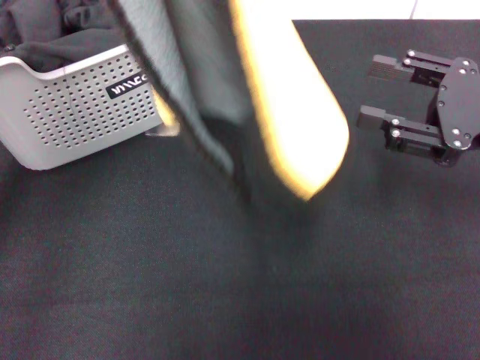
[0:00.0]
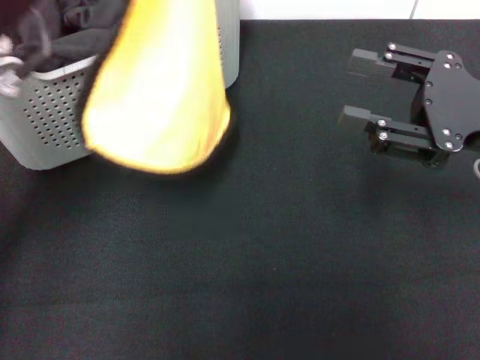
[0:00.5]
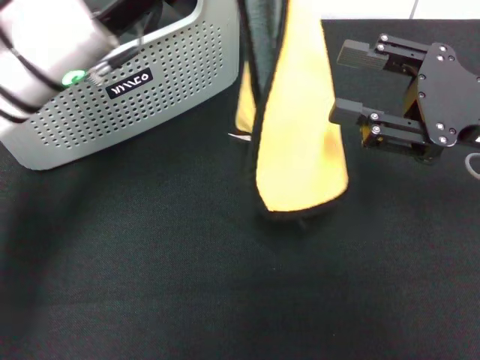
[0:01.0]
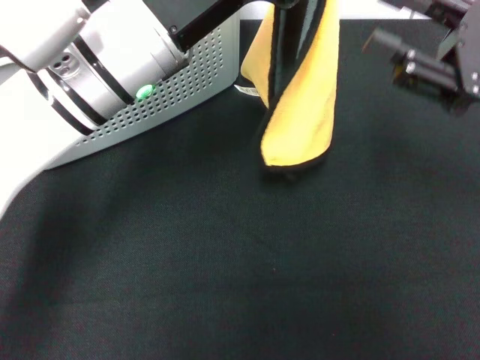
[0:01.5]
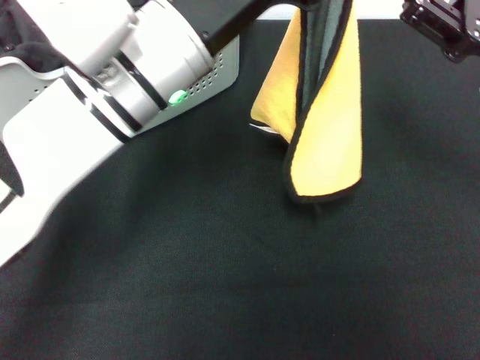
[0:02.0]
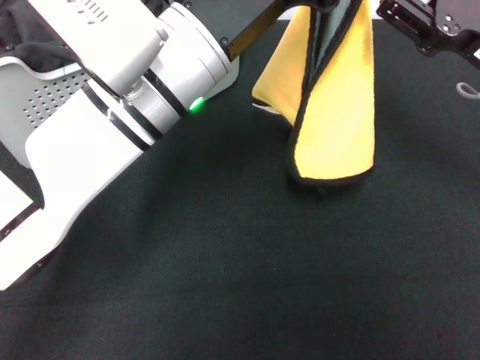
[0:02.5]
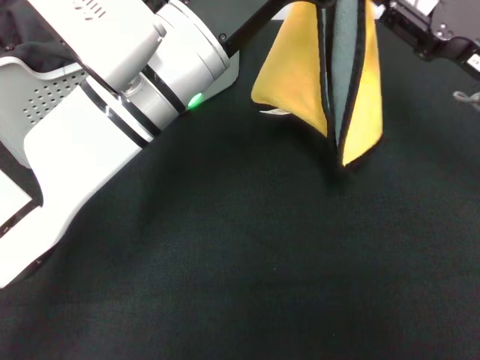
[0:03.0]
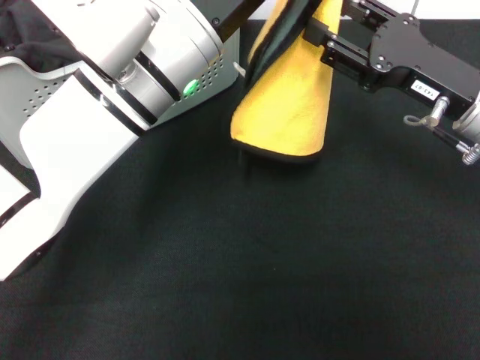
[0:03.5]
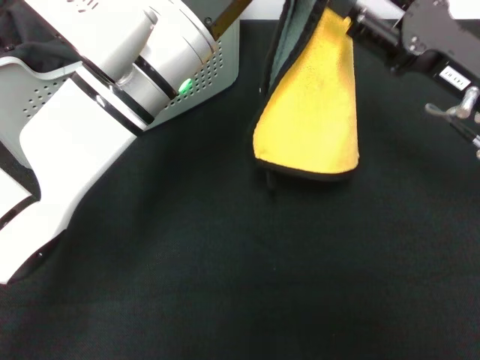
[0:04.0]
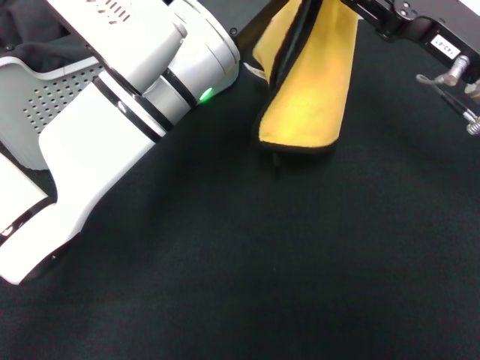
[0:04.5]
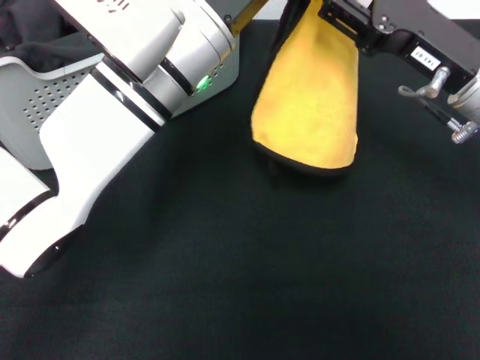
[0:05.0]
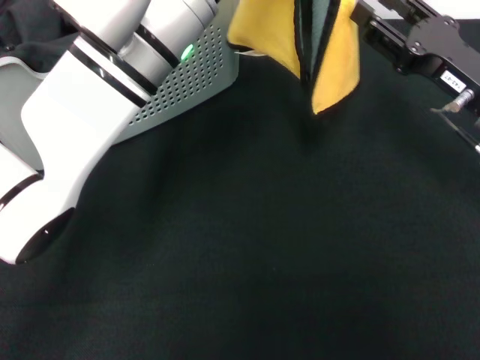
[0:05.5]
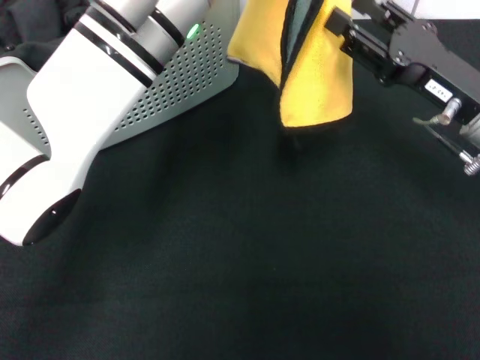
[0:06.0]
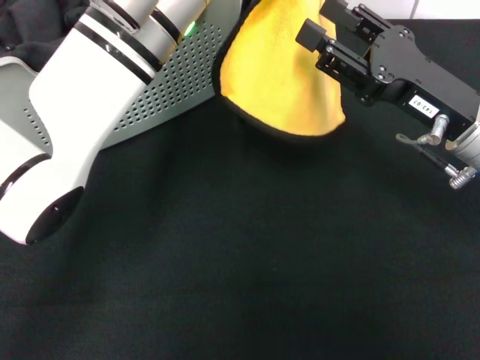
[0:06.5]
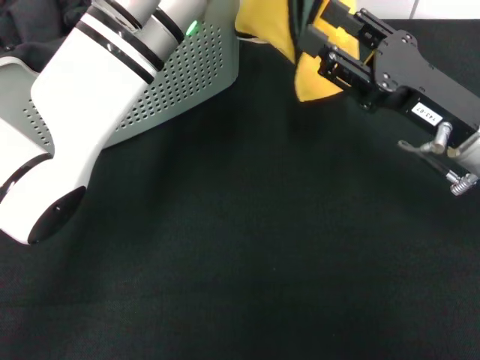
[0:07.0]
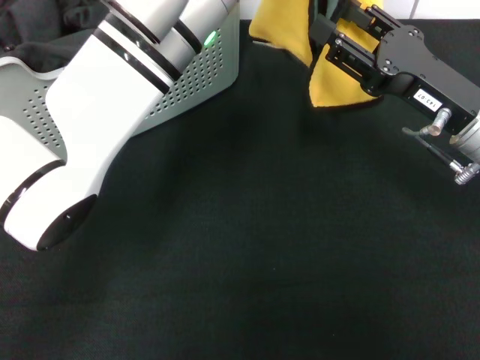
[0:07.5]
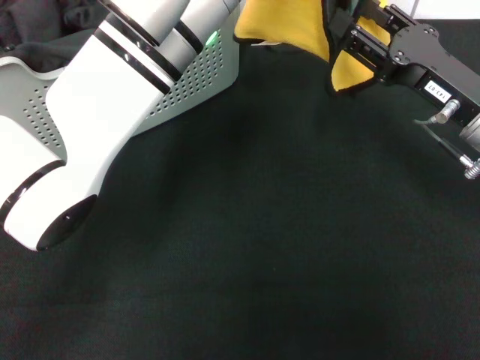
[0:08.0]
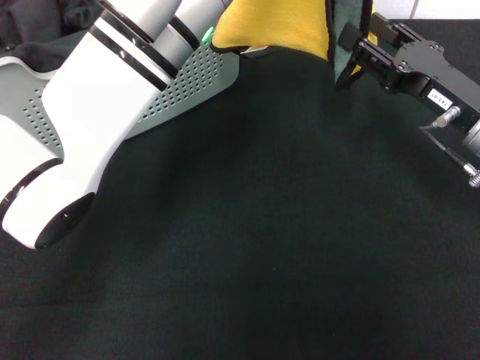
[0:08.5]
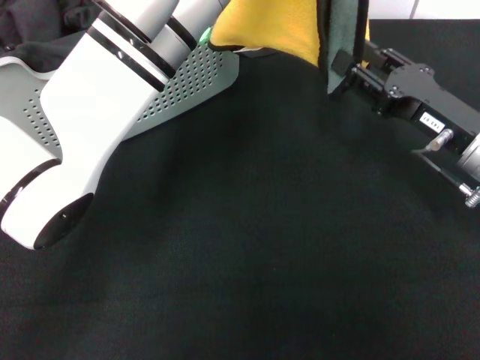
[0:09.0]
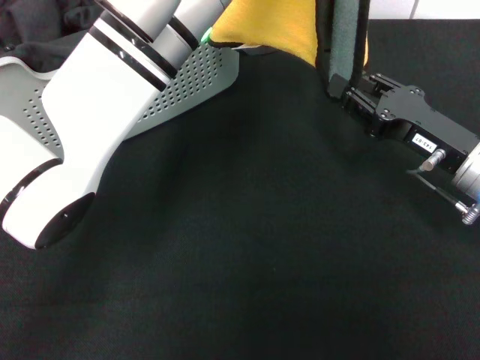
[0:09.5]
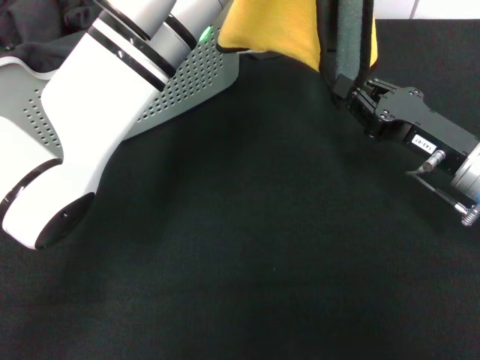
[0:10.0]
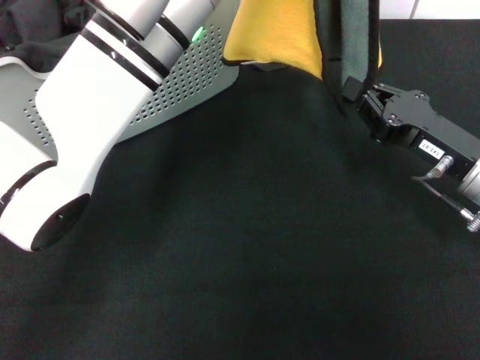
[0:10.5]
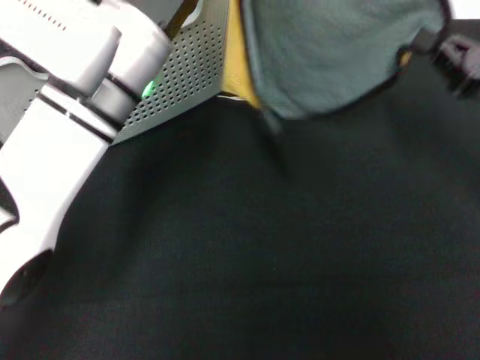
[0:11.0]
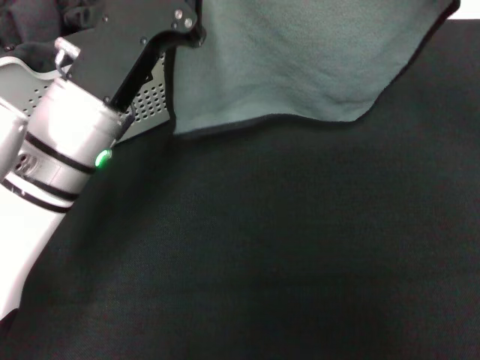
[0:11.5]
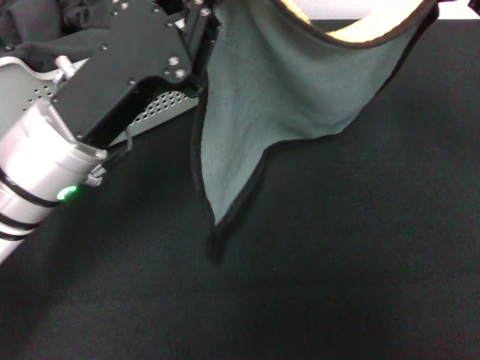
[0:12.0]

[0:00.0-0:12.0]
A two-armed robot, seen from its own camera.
Task of the whole recording: pick up the towel from the storage box and lay it flat on the black tablecloth.
Step, 0:00.0 to 0:10.5: Spread the towel flat with the left gripper.
0:00.0 to 0:02.0: The left gripper goes about 15 cm to the right and downward.
0:06.0 to 0:08.0: The grippers stay close to where they were, moving slightly.
0:08.0 to 0:10.0: The right gripper closes its fingers.
0:10.0 to 0:12.0: The left gripper heads to the left, backward and downward, covering about 15 cm. The right gripper heads upward and to the right, covering roughly 15 cm.

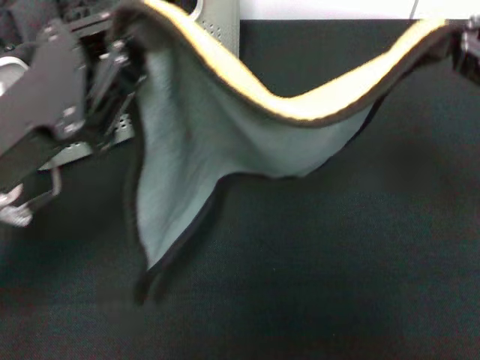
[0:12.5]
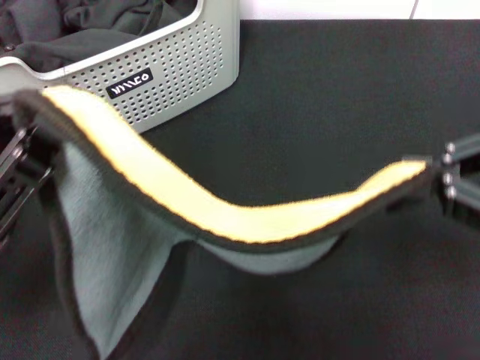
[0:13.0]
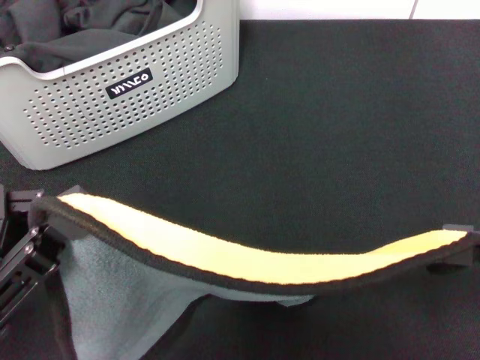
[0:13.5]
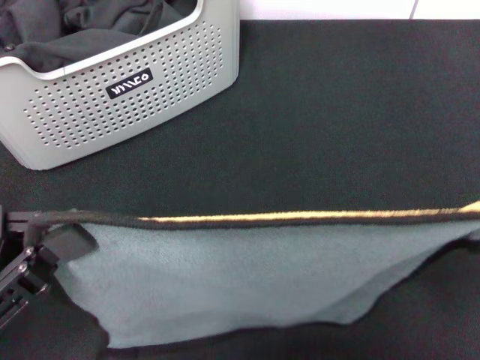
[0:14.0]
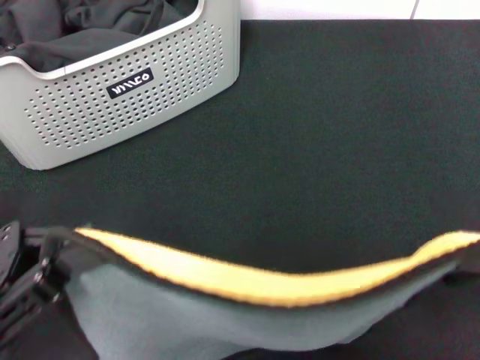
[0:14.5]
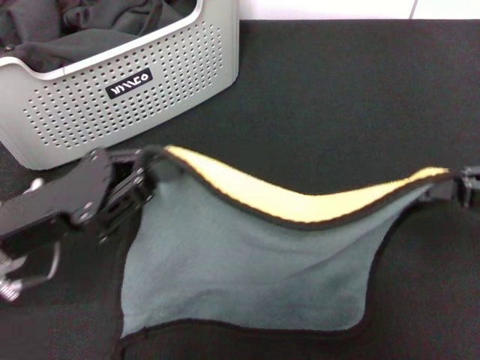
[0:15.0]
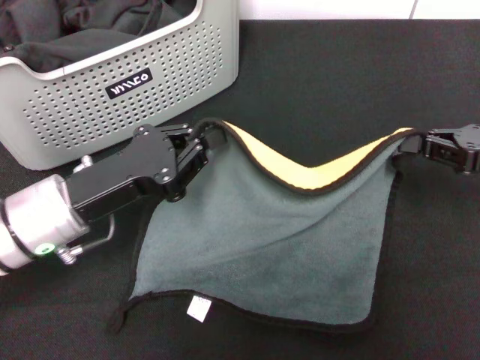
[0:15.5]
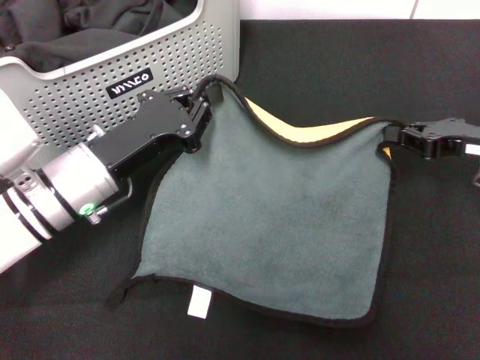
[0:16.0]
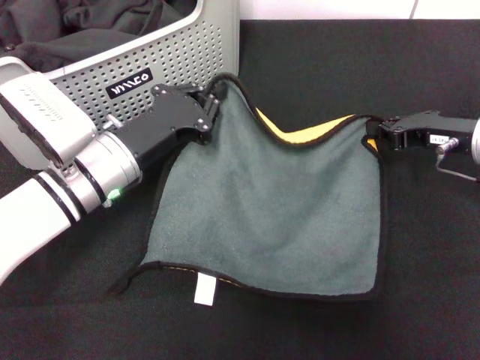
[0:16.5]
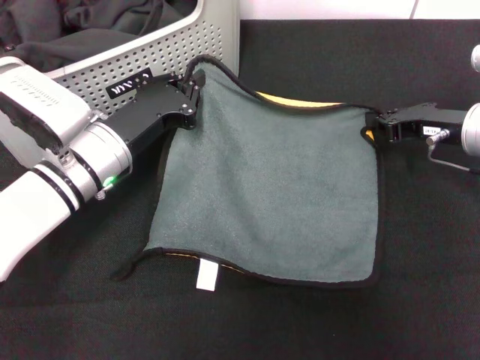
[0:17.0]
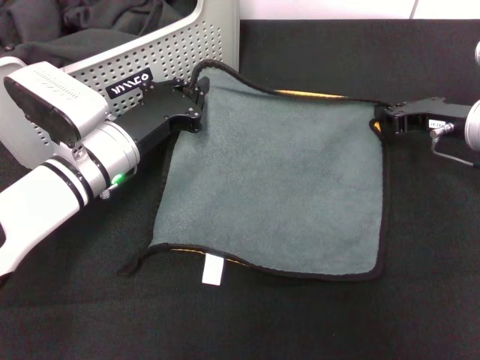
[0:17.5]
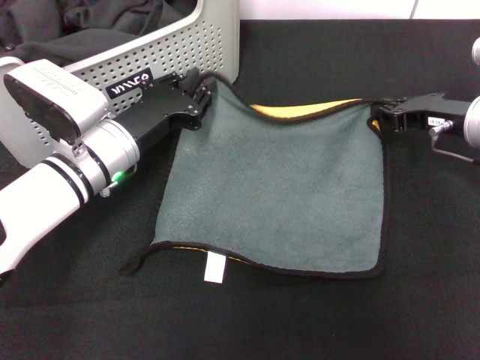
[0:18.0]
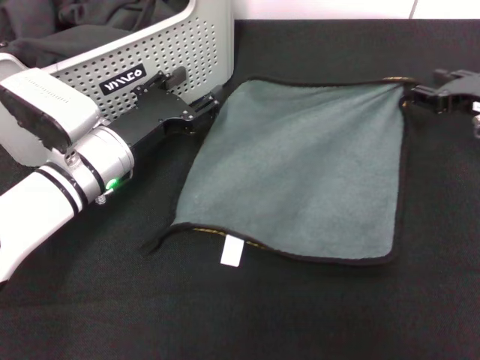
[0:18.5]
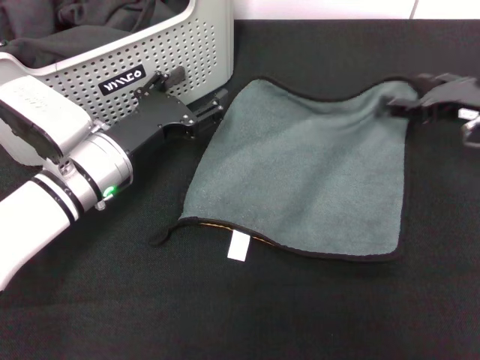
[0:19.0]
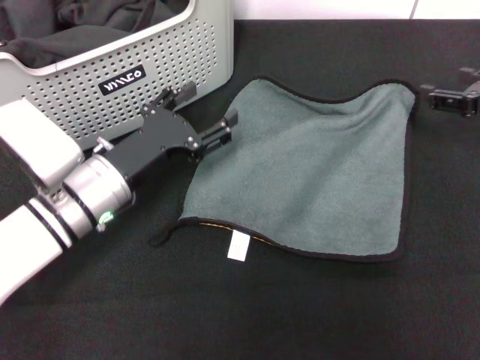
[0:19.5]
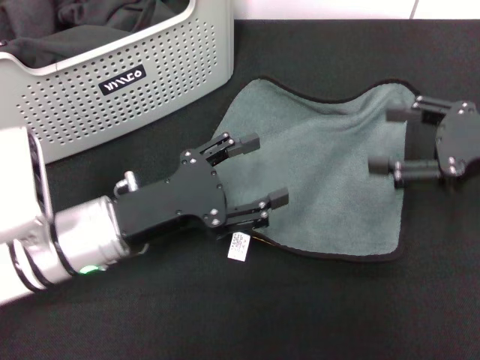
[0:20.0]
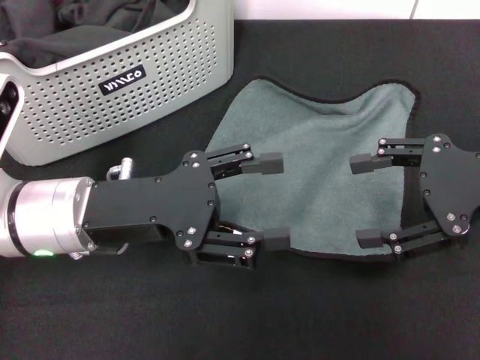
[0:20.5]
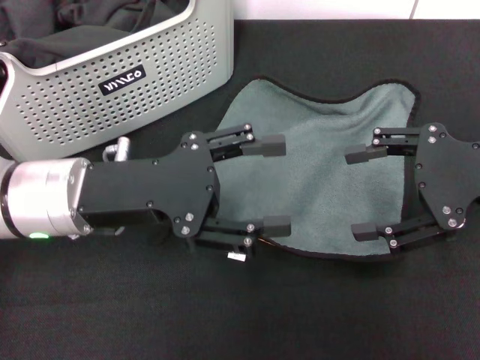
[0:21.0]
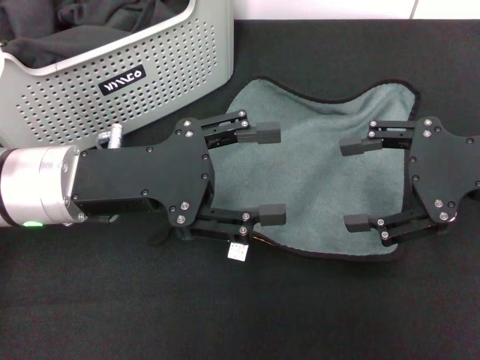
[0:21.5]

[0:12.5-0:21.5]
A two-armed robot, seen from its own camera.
Task of the whole recording: pick up the towel from the storage box and lay it flat on the black tablecloth.
Step, 0:12.5 to 0:18.0: Spread the towel flat with the right gripper.
0:12.5 to 0:14.5: The left gripper shifts some 10 cm backward and to the left. The right gripper shifts some 10 cm backward.
0:14.5 to 0:17.0: The left gripper goes some 25 cm forward, to the right and downward. The right gripper moves forward and downward, some 25 cm.
0:17.0 to 0:19.5: The right gripper shifts approximately 5 cm to the right, and opens up; the left gripper opens its fingers.
0:19.5 to 0:21.5: The left gripper moves upward, approximately 10 cm, while the right gripper is displaced backward, upward and to the left by roughly 10 cm.

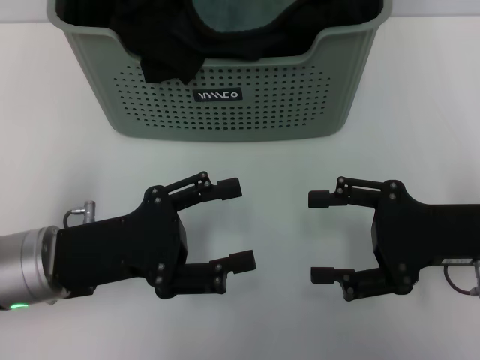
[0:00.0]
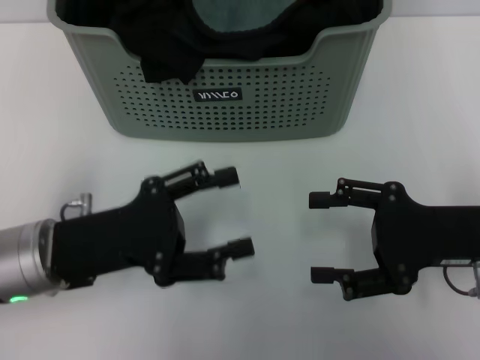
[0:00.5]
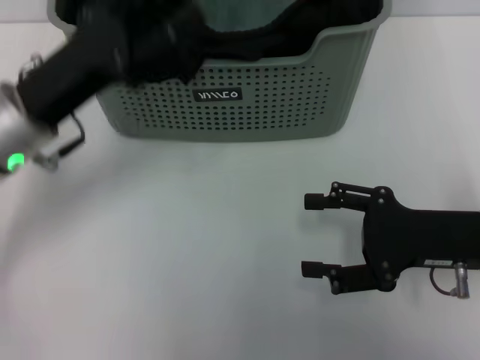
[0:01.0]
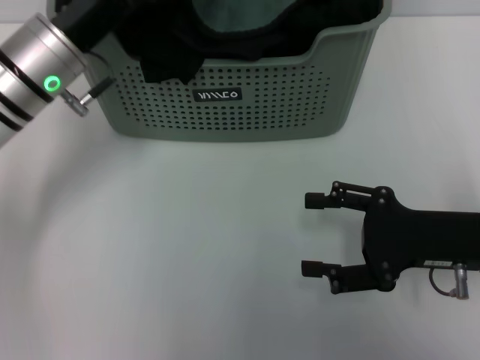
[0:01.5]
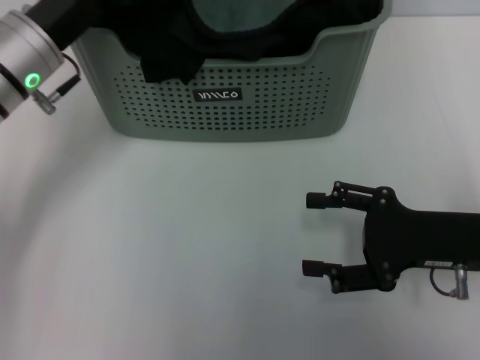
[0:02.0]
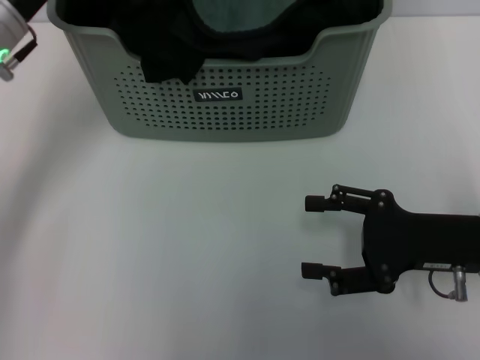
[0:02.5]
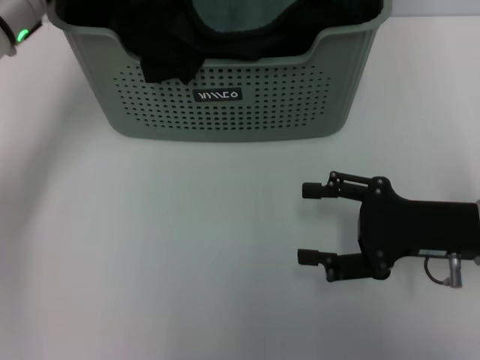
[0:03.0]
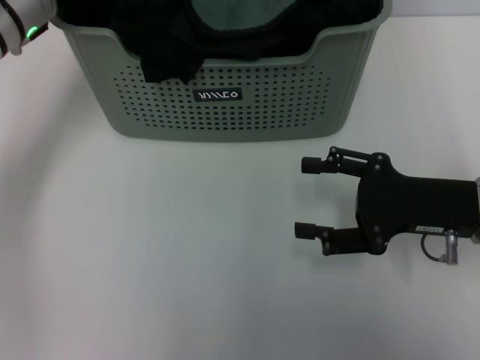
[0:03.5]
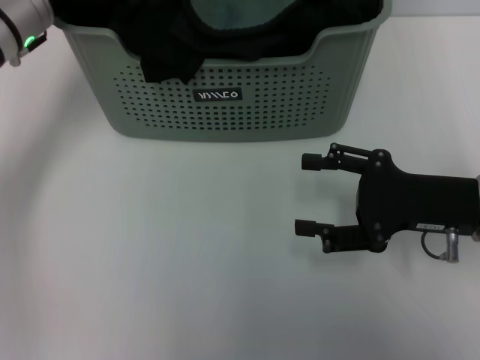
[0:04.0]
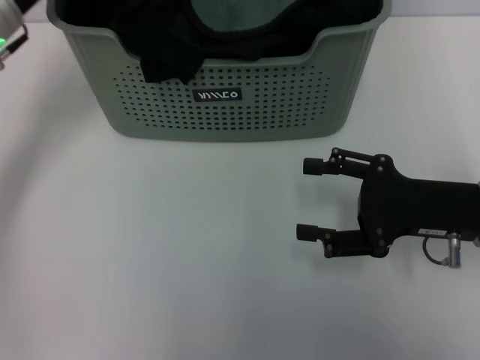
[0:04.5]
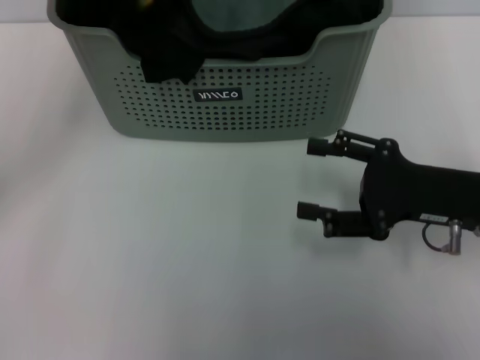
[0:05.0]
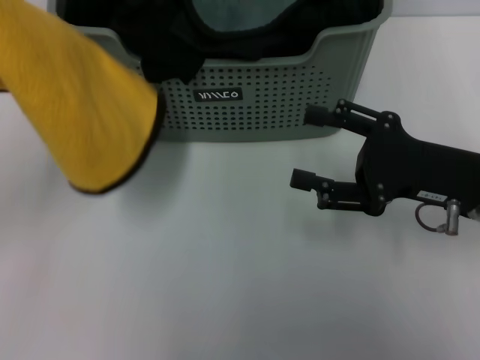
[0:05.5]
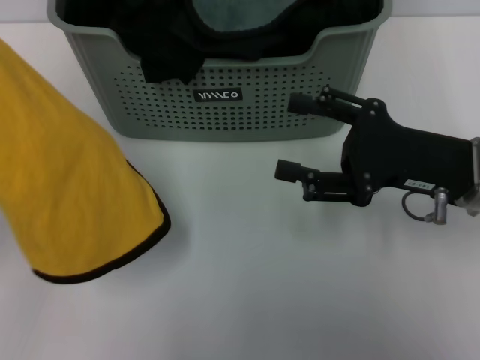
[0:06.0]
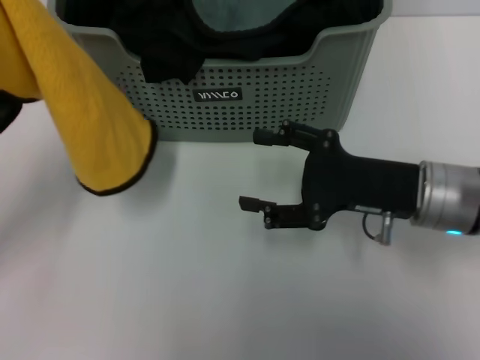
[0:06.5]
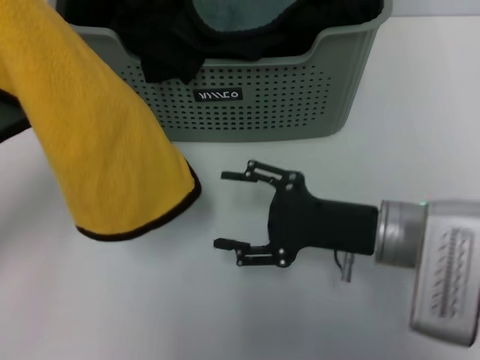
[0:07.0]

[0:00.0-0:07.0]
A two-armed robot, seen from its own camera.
Task of the whole recording: pick up the towel from the storage box and lay it flat on the table.
Step, 0:00.0 to 0:04.5: Pick up a towel with the left gripper.
0:00.0 to 0:02.0: The left gripper goes about 15 cm forward and upward.
0:02.0 to 0:03.5: The left gripper is displaced forward by some 5 cm.
0:03.5 to 0:05.0: The left gripper heads backward and to the left, covering some 15 cm, and closes its fingers.
0:05.0 to 0:07.0: The left gripper shifts by approximately 5 cm. Meanwhile the right gripper shifts some 10 cm to the left.
